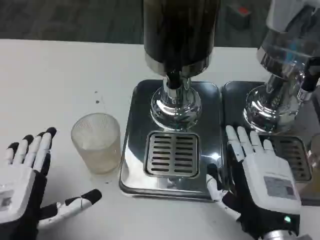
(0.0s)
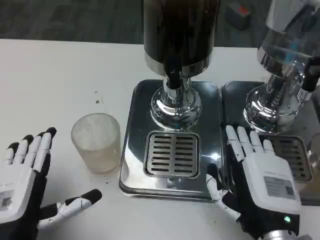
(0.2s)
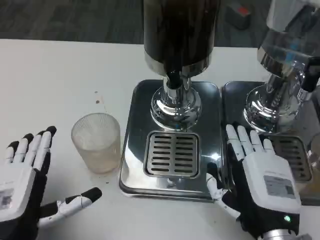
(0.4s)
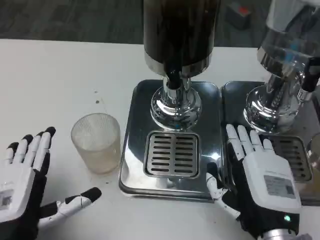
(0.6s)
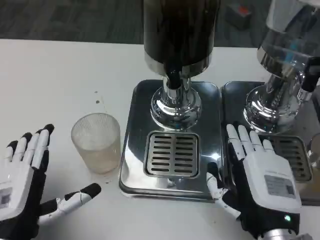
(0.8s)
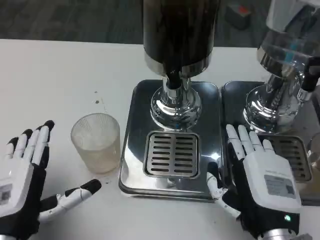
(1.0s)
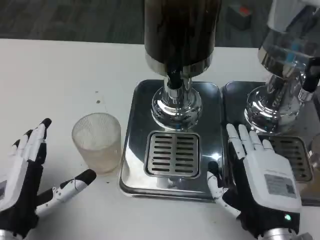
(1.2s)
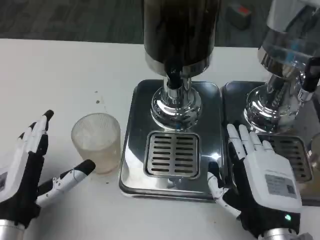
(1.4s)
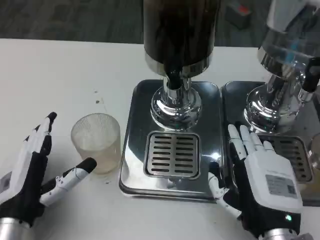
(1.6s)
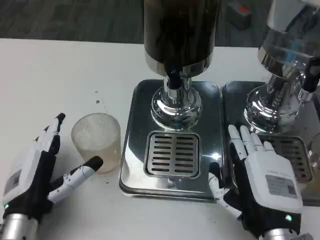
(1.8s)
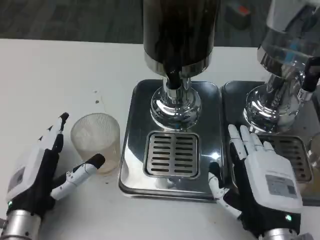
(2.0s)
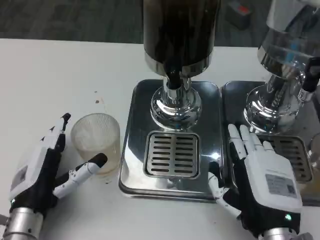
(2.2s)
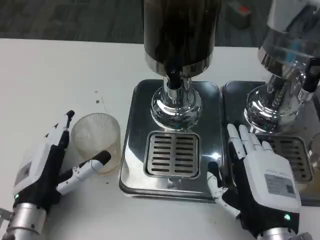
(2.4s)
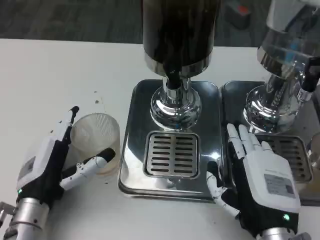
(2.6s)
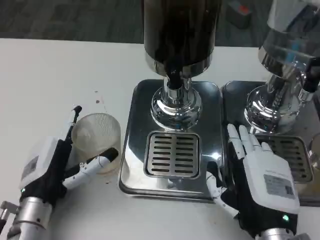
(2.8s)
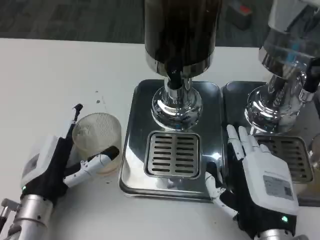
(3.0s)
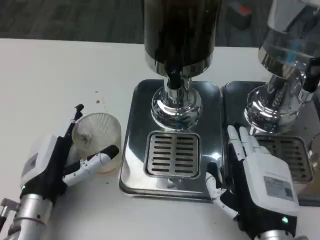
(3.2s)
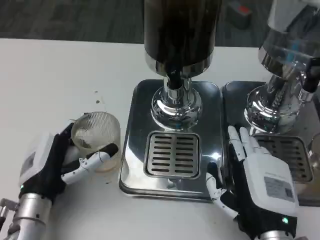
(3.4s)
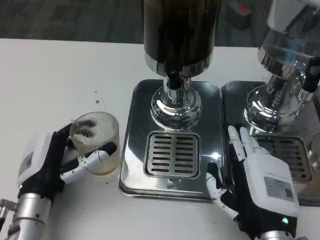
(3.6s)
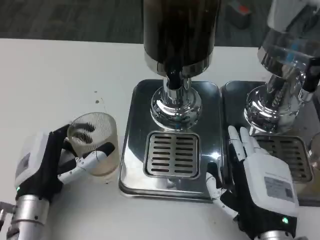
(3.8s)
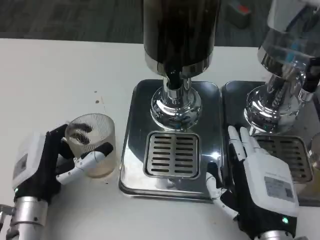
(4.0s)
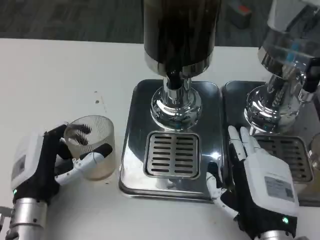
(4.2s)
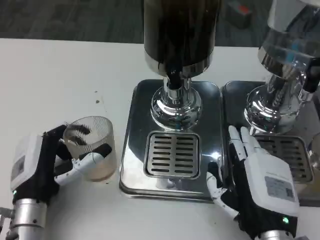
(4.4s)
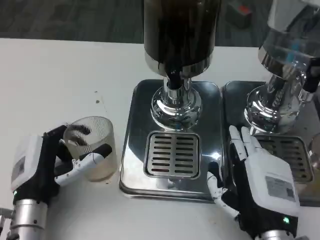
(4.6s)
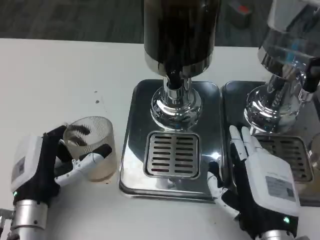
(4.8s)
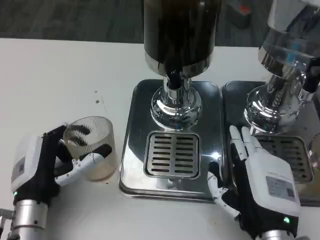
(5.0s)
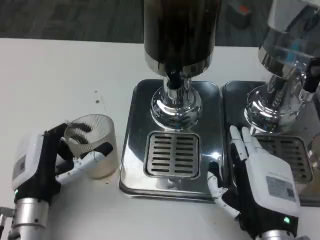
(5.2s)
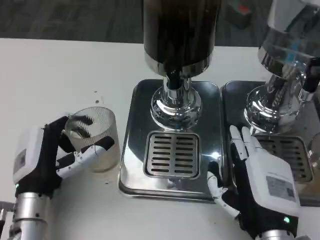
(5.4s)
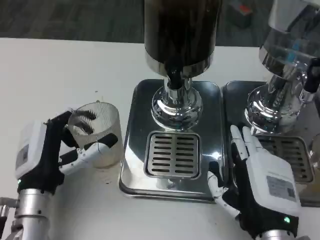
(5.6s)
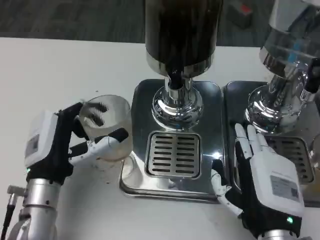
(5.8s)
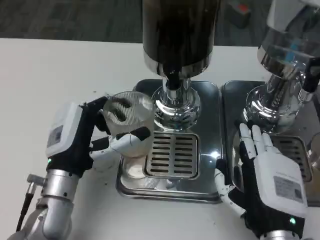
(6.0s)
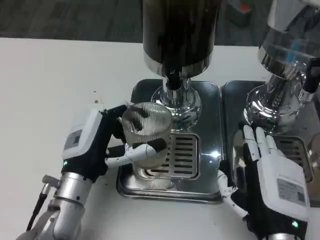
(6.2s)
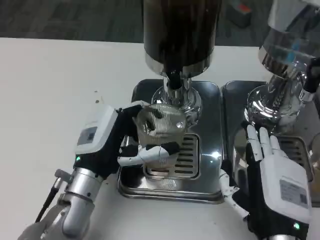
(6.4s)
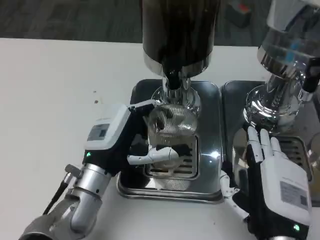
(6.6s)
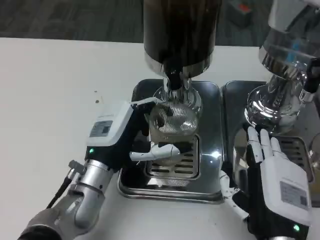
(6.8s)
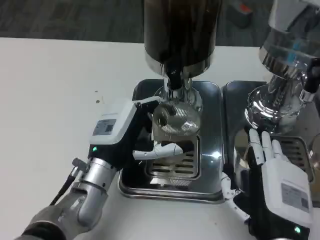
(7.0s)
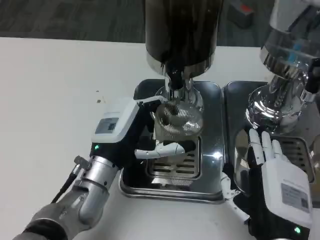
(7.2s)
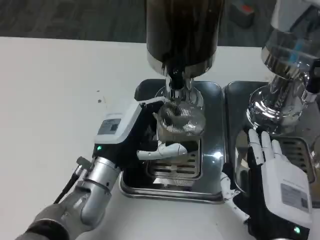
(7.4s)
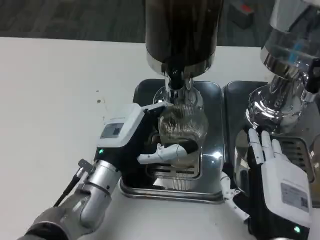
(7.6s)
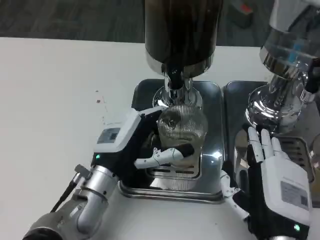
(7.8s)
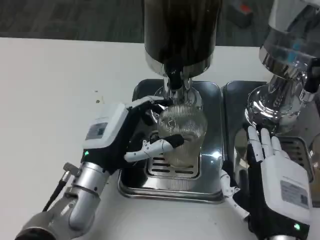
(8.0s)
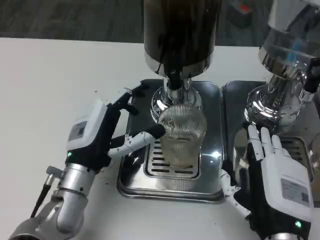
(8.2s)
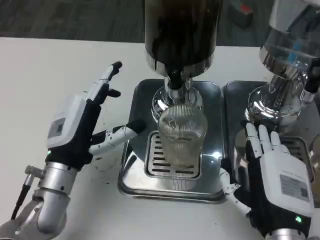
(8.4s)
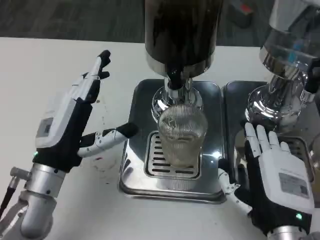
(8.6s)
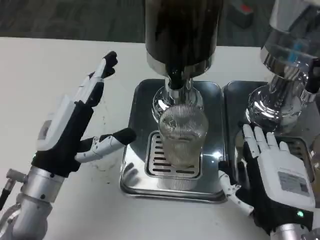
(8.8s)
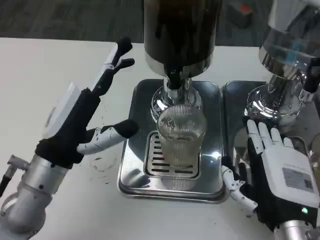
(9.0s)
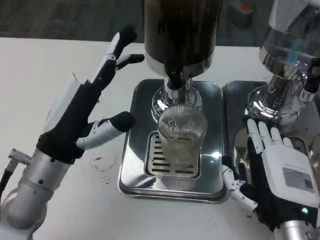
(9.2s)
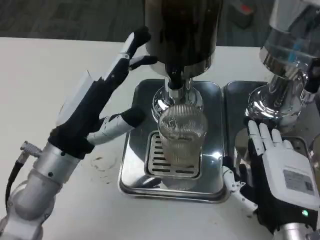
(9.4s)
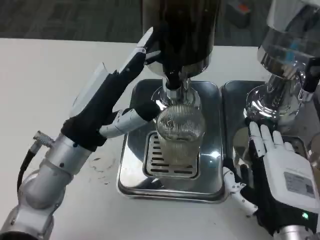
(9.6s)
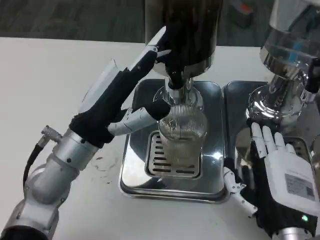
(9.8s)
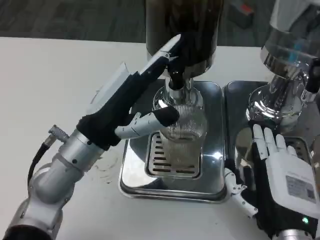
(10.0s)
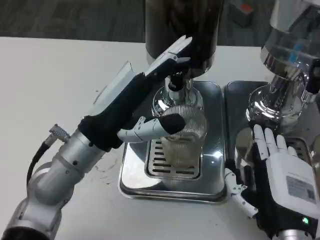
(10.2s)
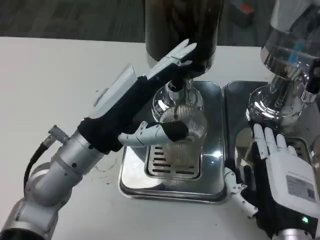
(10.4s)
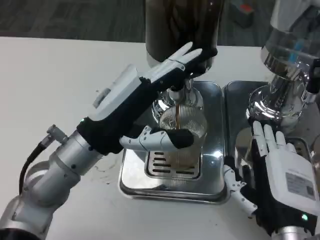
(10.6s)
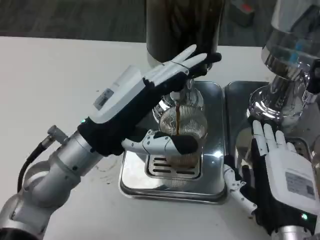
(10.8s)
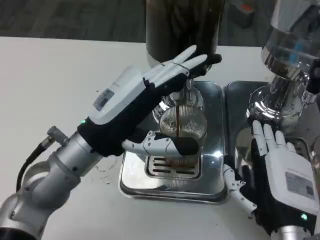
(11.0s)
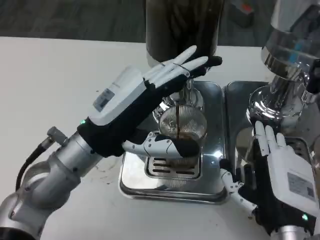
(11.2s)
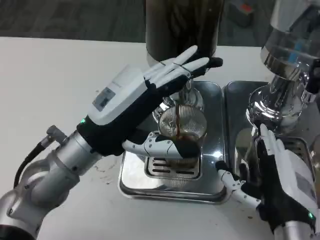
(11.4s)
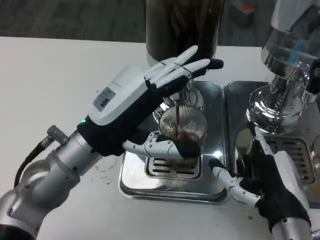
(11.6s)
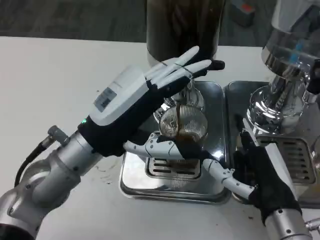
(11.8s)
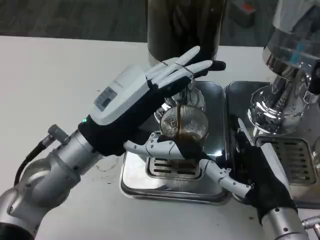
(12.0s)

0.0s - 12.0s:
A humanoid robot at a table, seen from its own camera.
Task of the whole recording: Grasp the cup under the faucet to collect the drink, then remove the cup.
1.6s - 4.4s: The hands stay close to where they were, moving slightly.
4.4s - 6.0s: The left hand ends up approximately 5 cm from where it was.
6.0s - 7.6s: The left hand changes place by some 5 cm.
7.6s - 9.0s: The left hand is displaced to the left and upward by roughly 10 cm.
9.0s - 10.4s: The left hand moves roughly 5 cm.

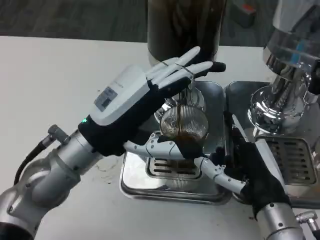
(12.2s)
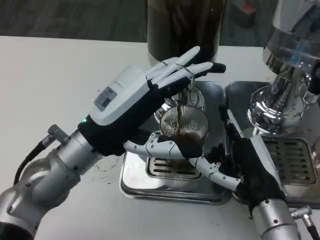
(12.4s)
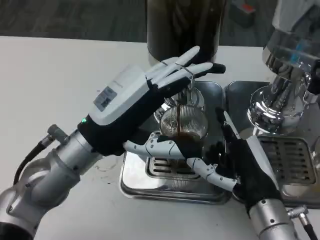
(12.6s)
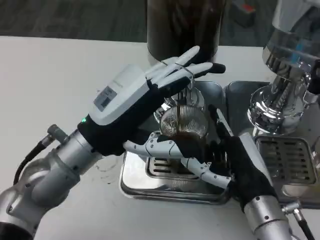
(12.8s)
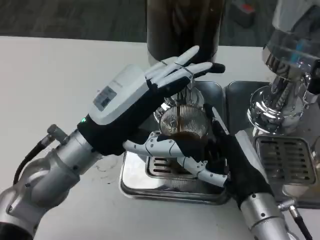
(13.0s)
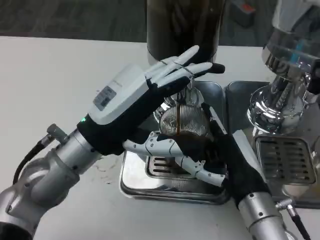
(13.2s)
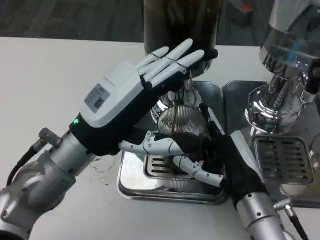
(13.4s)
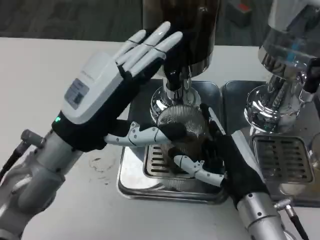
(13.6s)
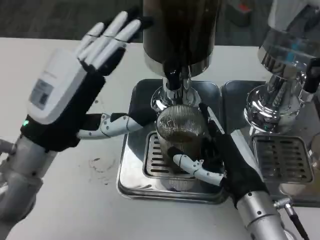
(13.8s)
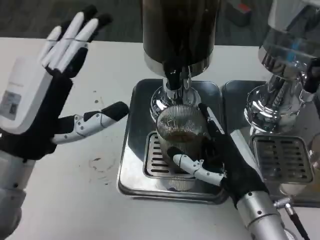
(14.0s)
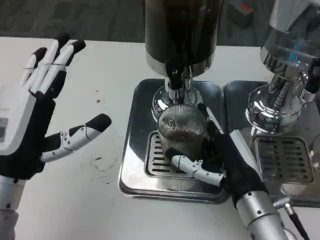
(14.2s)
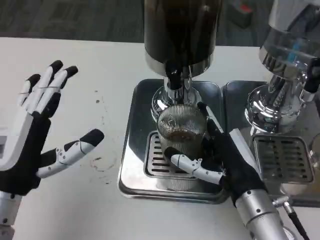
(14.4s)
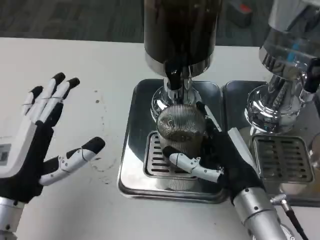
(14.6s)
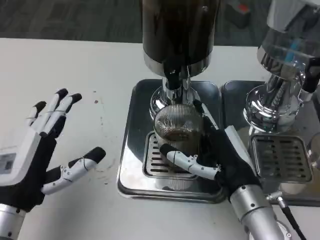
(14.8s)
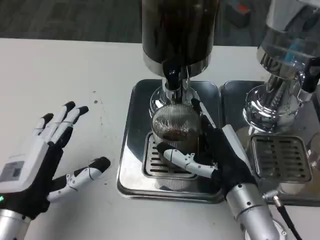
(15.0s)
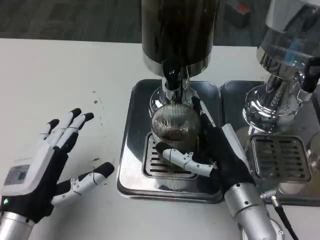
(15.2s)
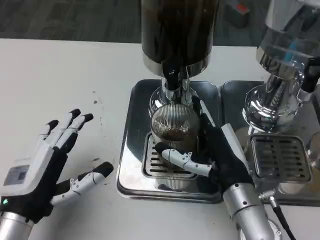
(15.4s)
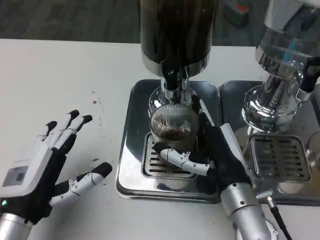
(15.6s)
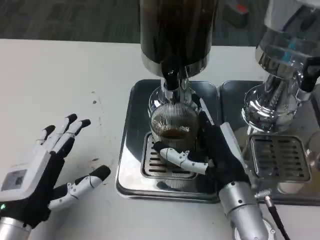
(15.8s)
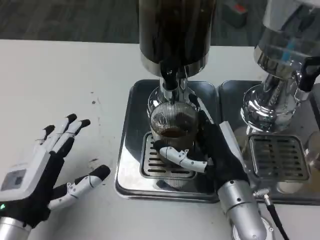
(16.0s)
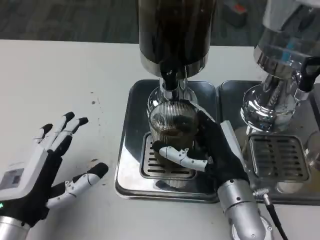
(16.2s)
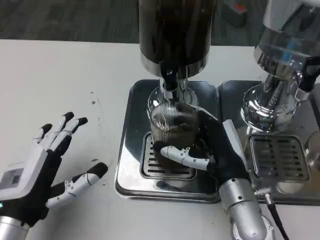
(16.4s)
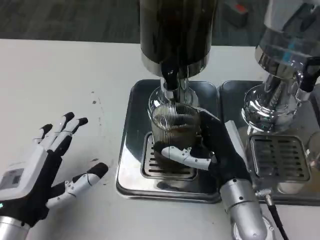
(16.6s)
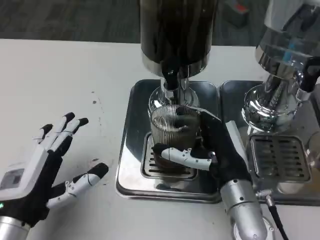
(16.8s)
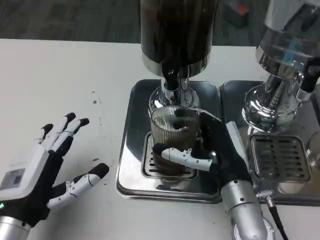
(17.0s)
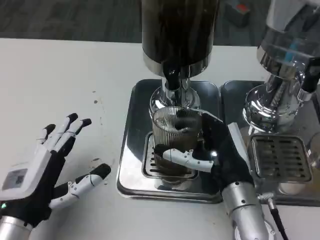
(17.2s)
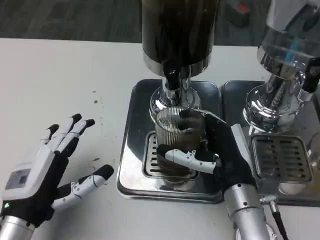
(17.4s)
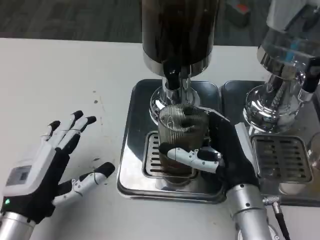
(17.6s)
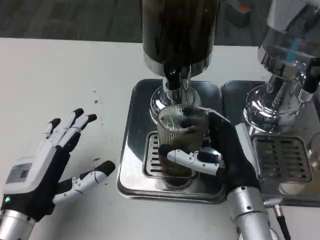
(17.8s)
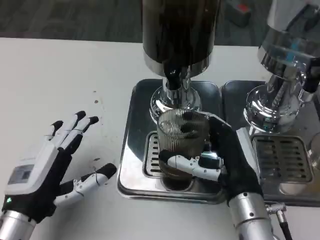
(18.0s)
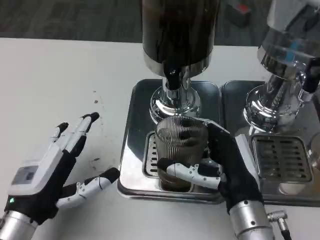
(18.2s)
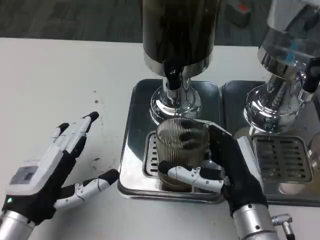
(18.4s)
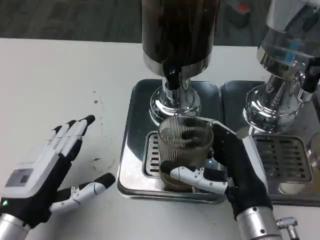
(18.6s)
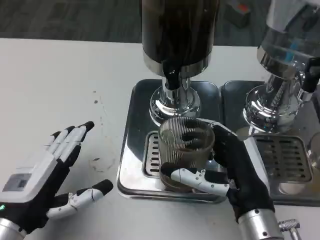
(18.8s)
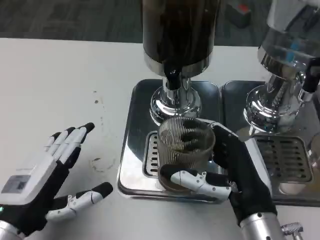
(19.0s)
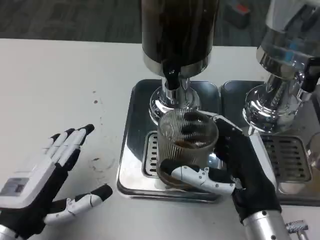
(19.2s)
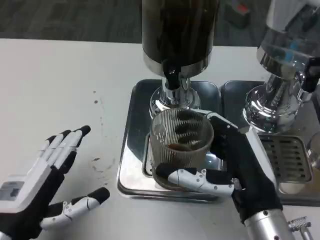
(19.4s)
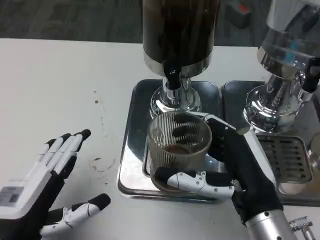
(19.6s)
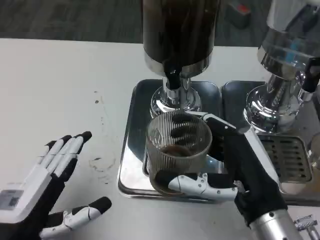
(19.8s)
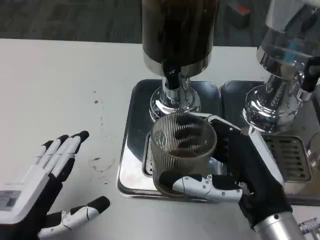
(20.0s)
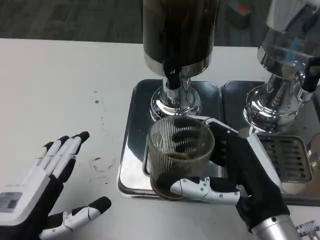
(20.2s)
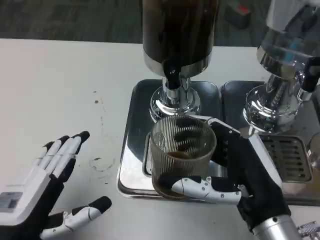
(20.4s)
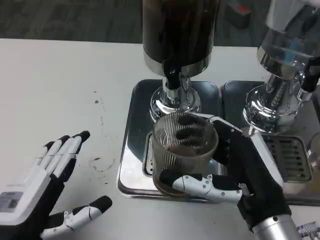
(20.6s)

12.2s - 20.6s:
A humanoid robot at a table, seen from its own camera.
Task of the whole recording: Grasp the cup under the faucet to collect the drink, then remove the cup.
13.6s - 15.0s: The left hand moves downward, backward and to the left, about 15 cm.
17.8s - 19.2s: The right hand changes place by about 5 cm.
19.2s - 20.6s: There are only small adjustments of the hands.

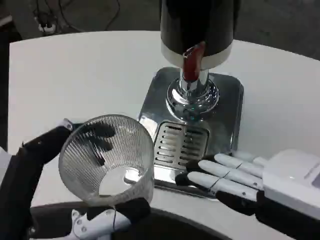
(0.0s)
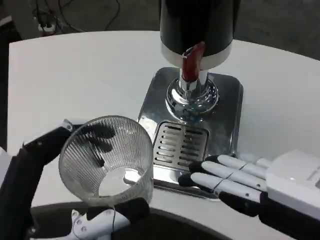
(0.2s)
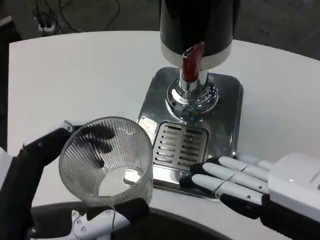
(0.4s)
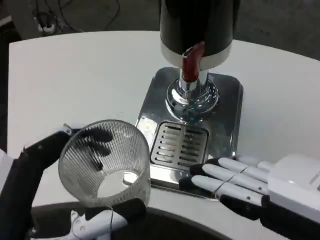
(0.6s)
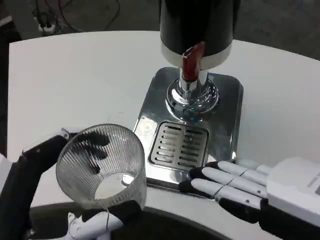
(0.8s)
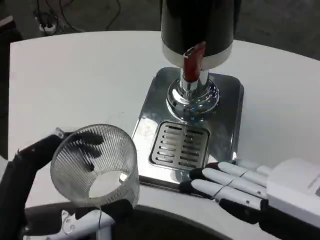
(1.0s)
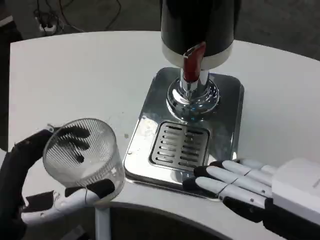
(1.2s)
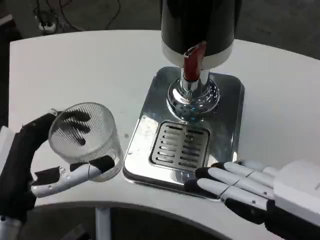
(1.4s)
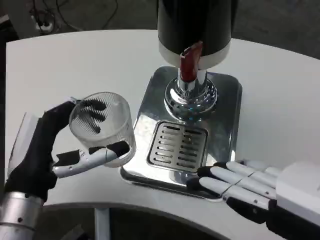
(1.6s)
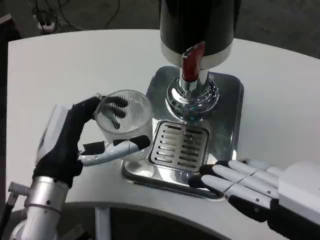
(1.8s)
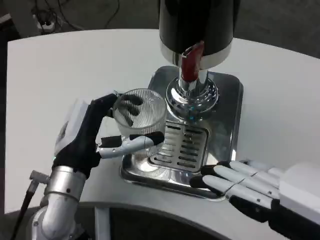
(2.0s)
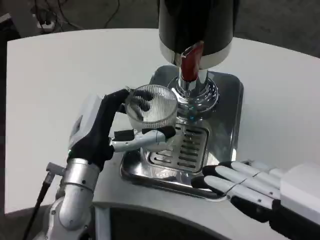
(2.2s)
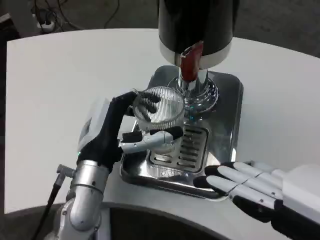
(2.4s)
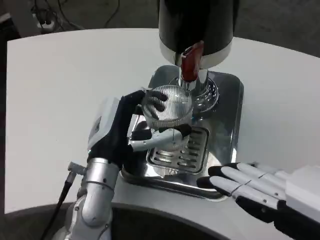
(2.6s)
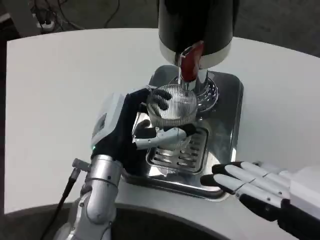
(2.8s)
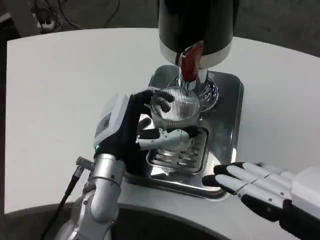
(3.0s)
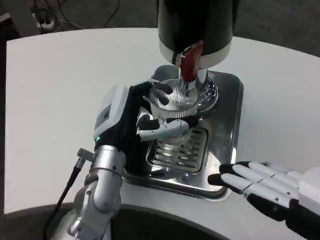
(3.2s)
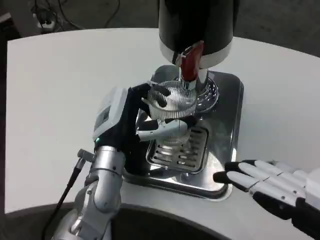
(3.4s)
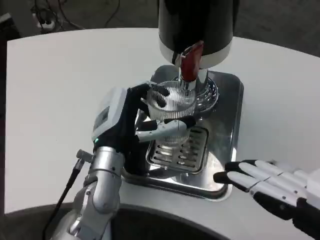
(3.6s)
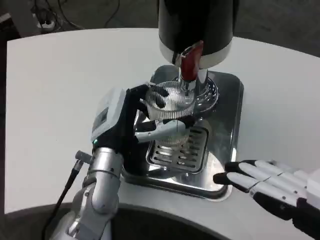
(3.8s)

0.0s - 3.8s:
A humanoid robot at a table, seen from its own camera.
Task of the whole recording: Grasp the cup under the faucet to collect the drink, then remove the cup.
0.0s - 1.2s: The left hand is displaced forward by roughly 5 cm.
1.2s - 2.6s: The left hand moves forward and to the right, approximately 20 cm.
2.6s - 3.8s: There are only small adjustments of the hands.
